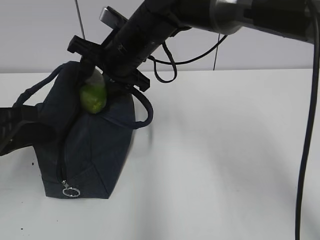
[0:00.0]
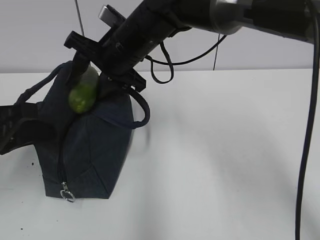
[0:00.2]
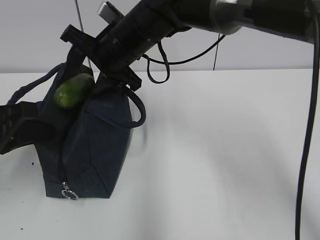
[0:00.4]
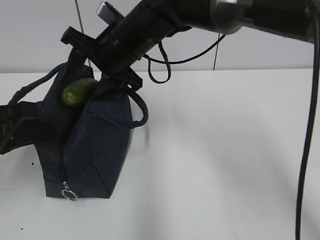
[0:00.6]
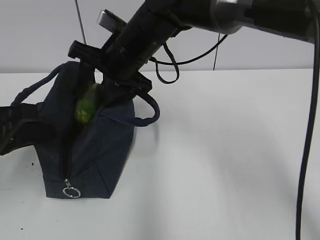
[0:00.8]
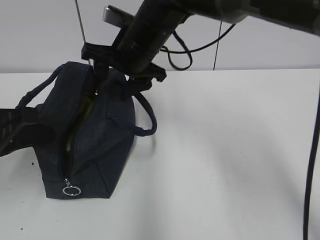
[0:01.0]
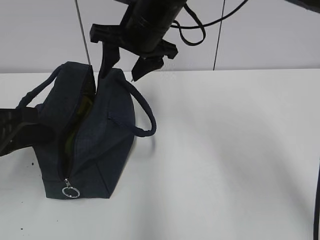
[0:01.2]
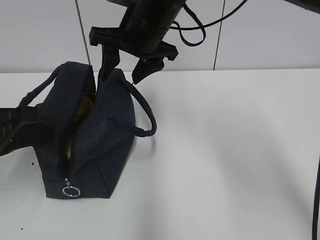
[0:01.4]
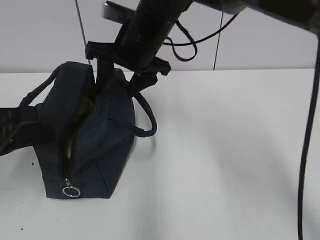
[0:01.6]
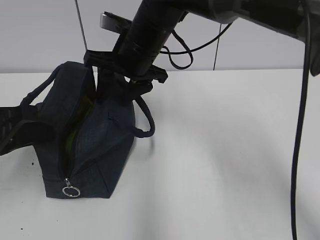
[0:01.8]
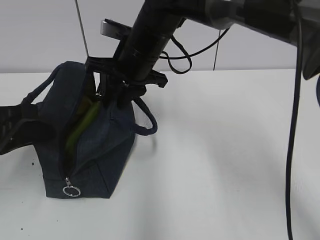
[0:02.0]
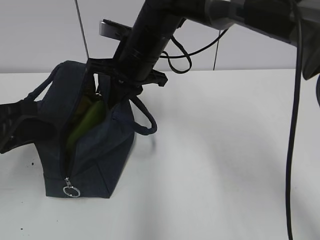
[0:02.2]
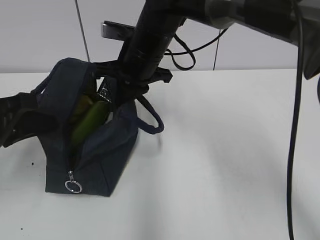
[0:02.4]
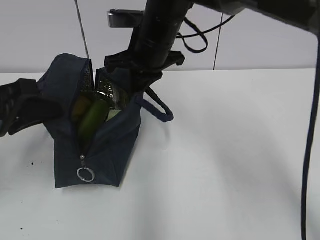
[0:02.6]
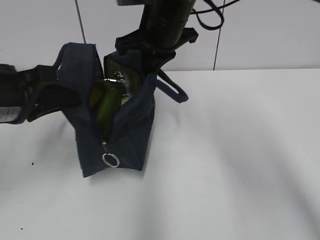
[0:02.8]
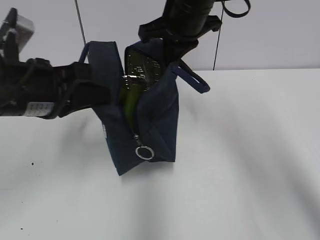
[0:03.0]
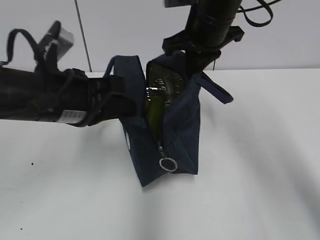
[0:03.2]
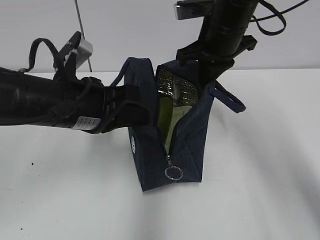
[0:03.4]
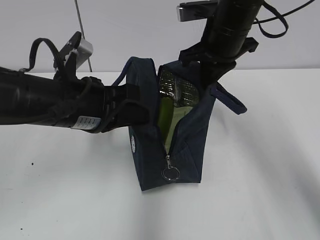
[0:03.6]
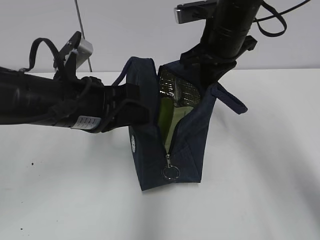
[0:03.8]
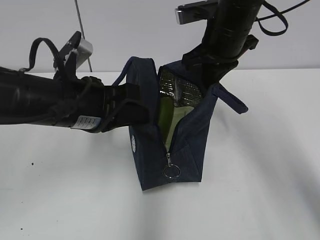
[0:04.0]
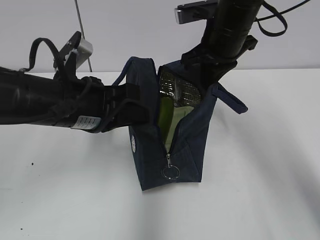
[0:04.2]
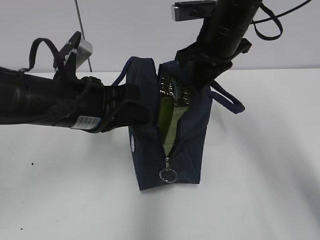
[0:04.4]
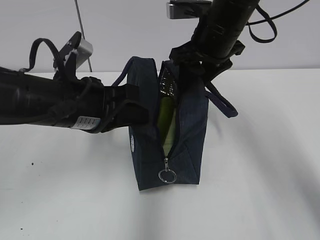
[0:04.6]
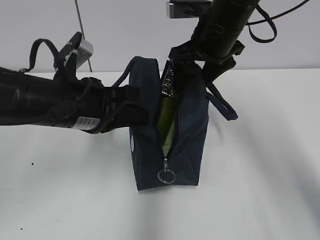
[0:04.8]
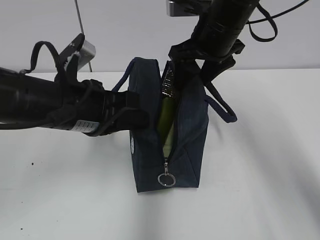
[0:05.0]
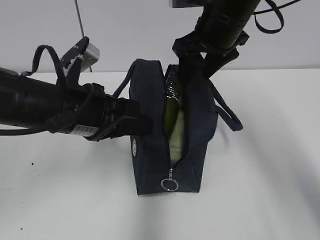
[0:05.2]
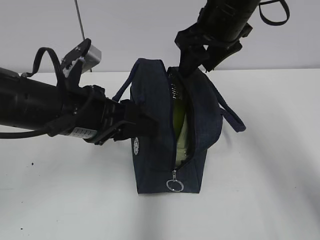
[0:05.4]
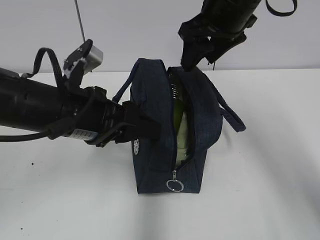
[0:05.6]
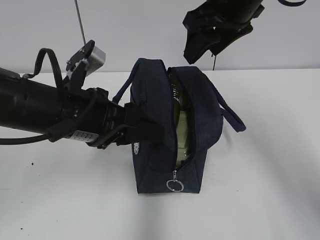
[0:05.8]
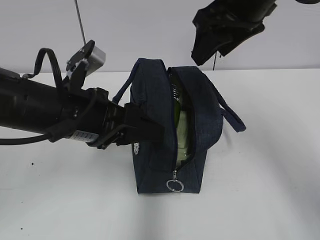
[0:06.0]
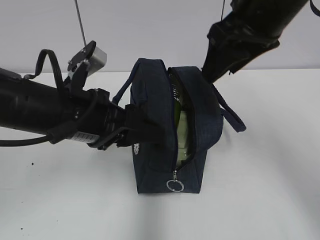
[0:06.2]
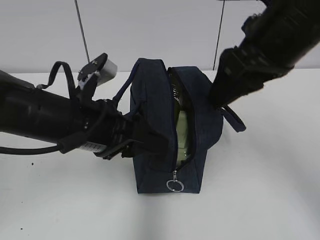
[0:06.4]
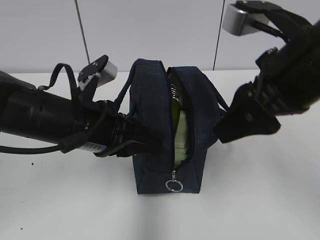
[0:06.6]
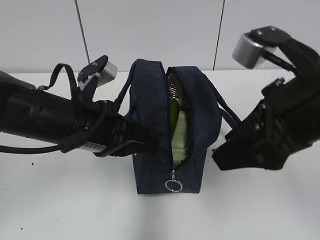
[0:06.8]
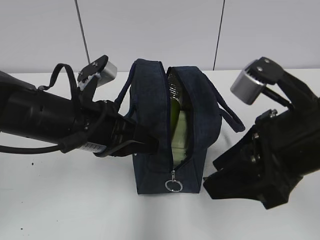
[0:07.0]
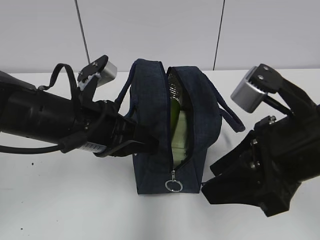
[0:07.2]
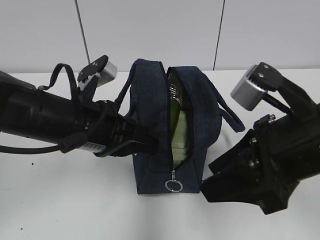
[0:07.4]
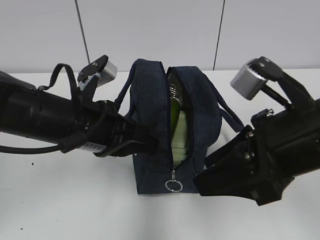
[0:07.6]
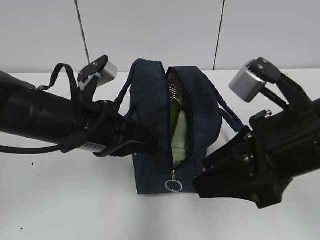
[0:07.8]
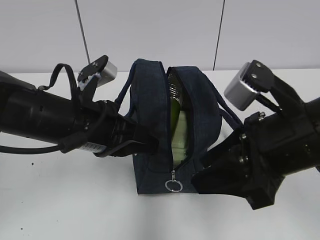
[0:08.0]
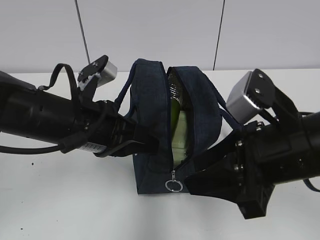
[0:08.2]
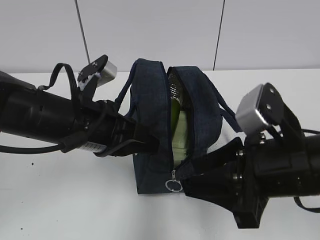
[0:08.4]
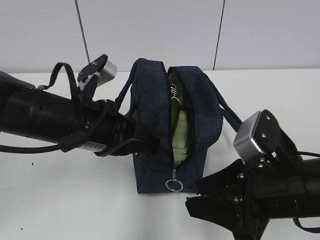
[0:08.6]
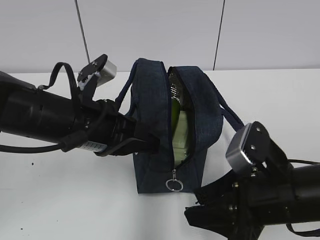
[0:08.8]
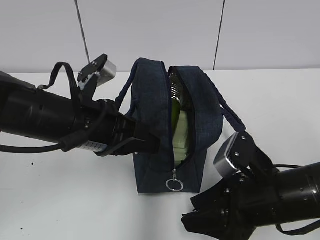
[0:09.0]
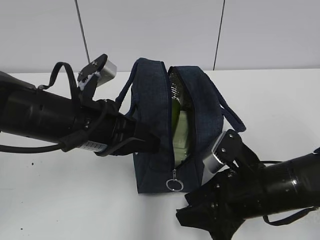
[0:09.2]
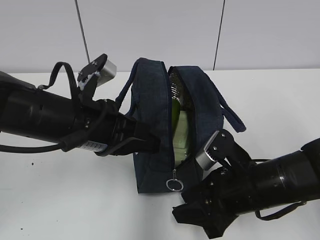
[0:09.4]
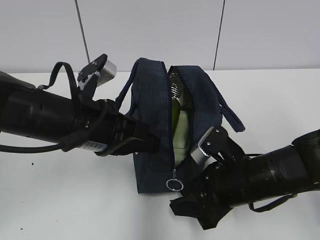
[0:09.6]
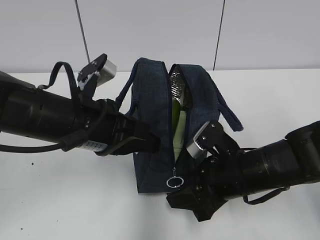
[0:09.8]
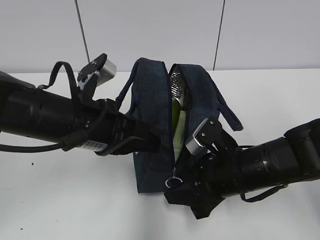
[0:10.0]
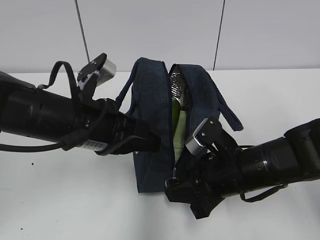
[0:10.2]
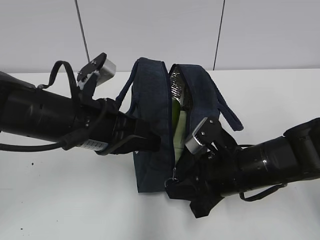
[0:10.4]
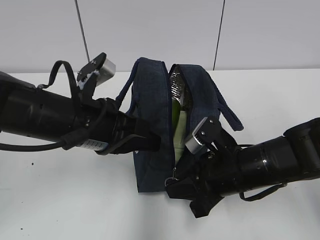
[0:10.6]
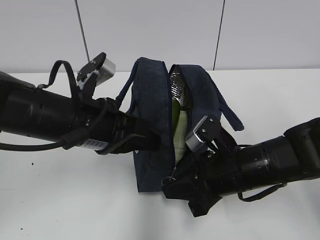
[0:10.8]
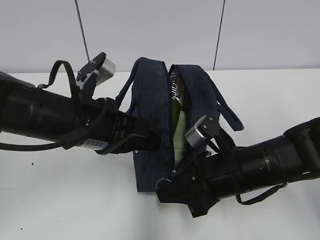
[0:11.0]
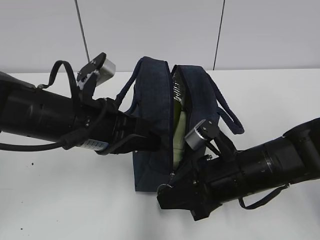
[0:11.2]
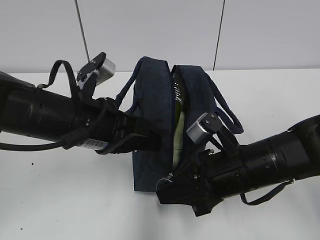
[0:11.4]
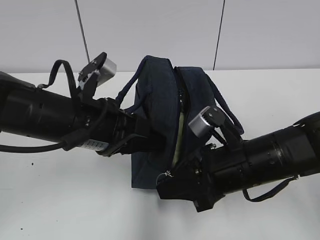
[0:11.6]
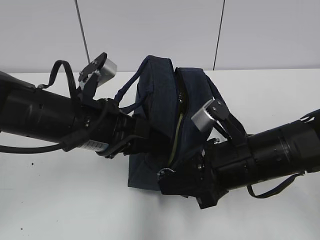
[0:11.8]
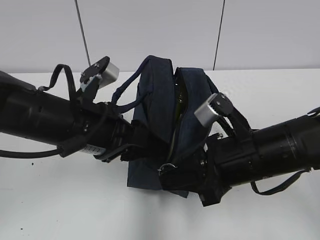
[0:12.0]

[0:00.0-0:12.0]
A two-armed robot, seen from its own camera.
0:01.6 to 0:03.0: Both grippers move to the right, about 5 cm. The right gripper closes up.
0:03.0 to 0:04.4: Both grippers move to the right, some 5 cm.
0:04.4 to 0:06.0: The right gripper heads upward and backward, covering approximately 10 cm, and opens. Meanwhile the left gripper opens its fingers.
0:06.0 to 0:07.6: The right gripper shifts some 20 cm backward and downward; the left gripper closes up.
0:07.6 to 0:09.0: The right gripper heads downward, covering about 10 cm.
0:09.0 to 0:10.4: The right gripper travels forward by about 5 cm, and closes its fingers.
0:10.4 to 0:12.0: The left gripper opens its fingers; the right gripper goes approximately 5 cm upward.

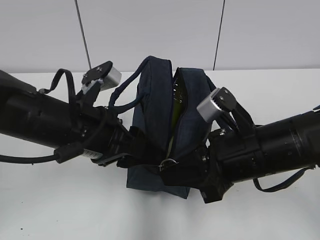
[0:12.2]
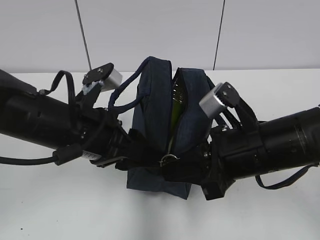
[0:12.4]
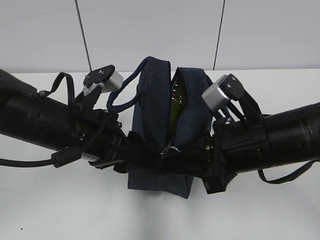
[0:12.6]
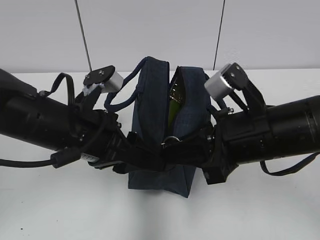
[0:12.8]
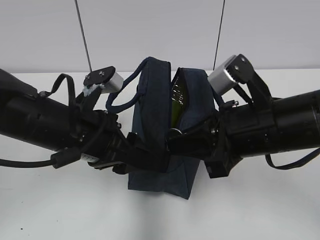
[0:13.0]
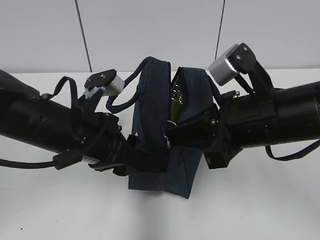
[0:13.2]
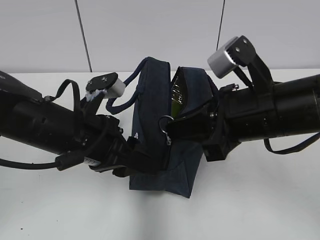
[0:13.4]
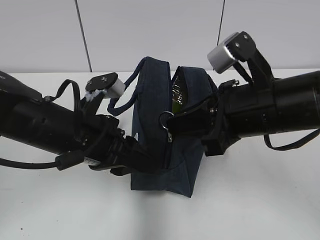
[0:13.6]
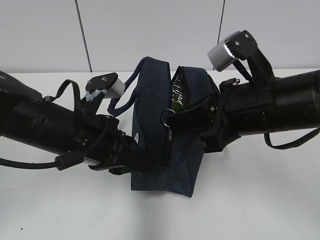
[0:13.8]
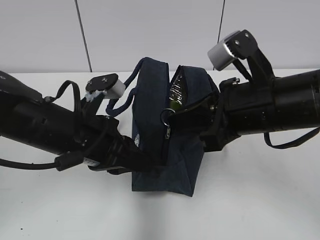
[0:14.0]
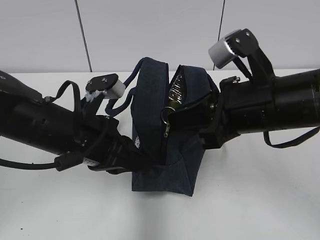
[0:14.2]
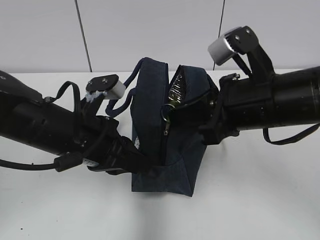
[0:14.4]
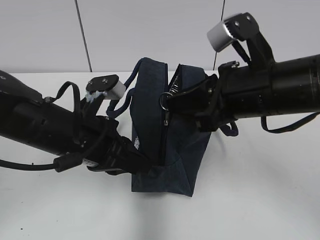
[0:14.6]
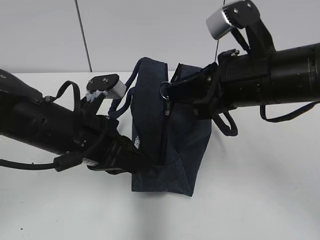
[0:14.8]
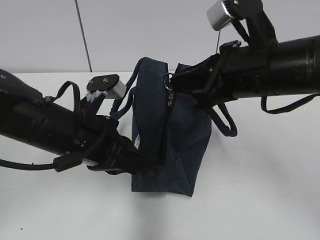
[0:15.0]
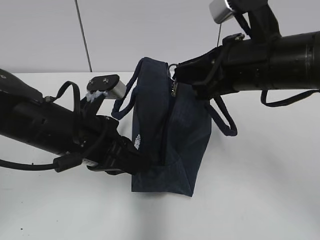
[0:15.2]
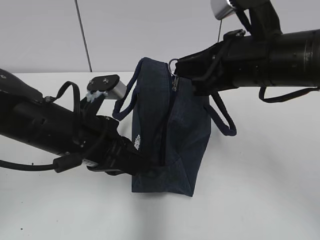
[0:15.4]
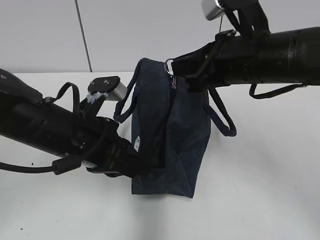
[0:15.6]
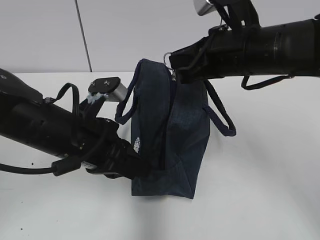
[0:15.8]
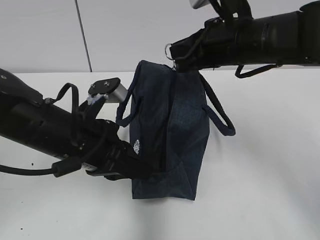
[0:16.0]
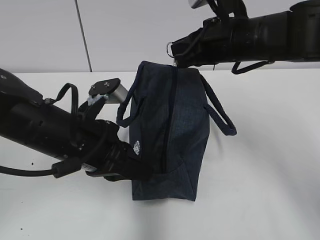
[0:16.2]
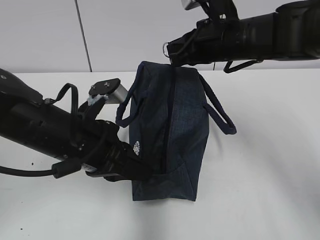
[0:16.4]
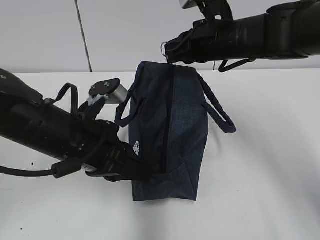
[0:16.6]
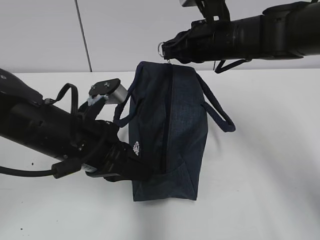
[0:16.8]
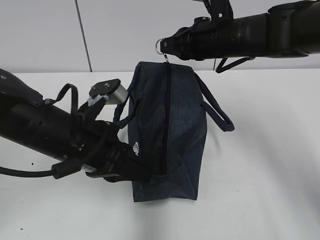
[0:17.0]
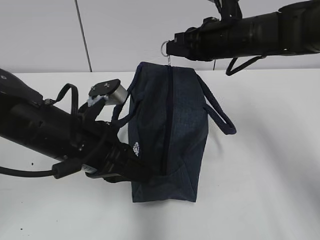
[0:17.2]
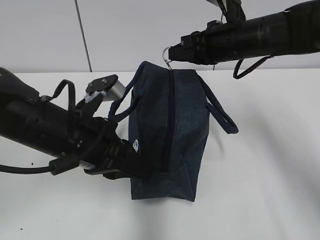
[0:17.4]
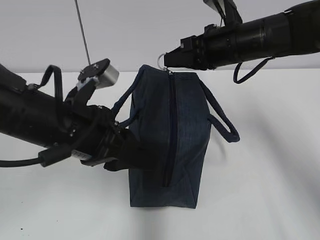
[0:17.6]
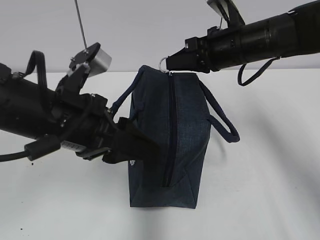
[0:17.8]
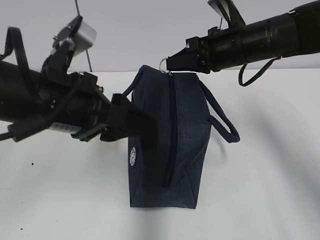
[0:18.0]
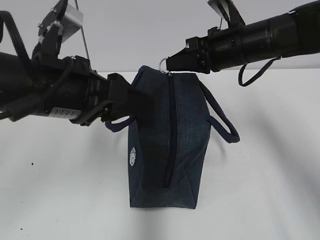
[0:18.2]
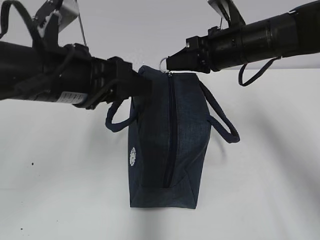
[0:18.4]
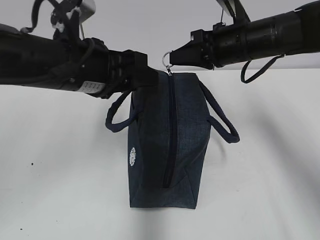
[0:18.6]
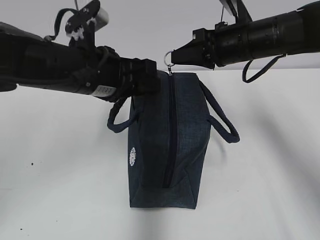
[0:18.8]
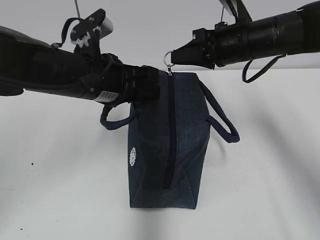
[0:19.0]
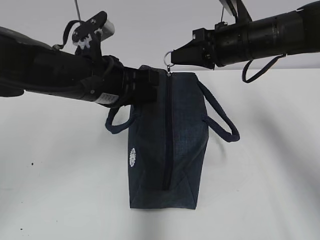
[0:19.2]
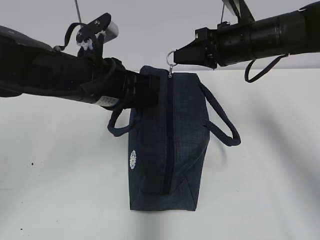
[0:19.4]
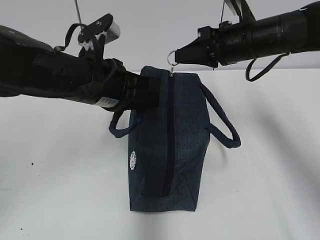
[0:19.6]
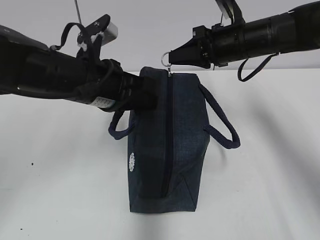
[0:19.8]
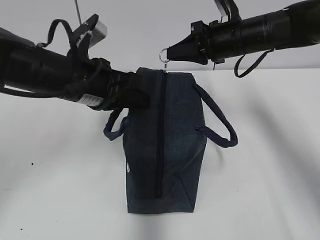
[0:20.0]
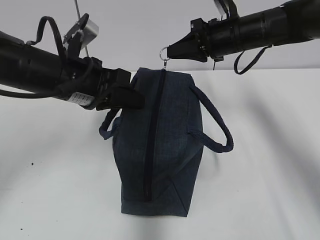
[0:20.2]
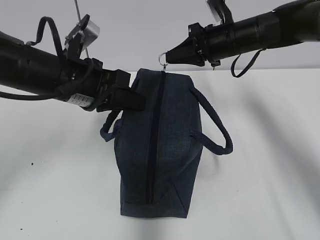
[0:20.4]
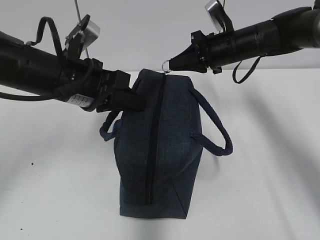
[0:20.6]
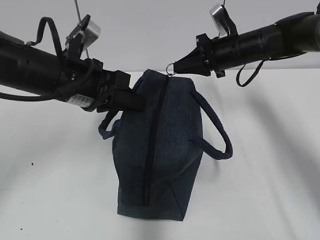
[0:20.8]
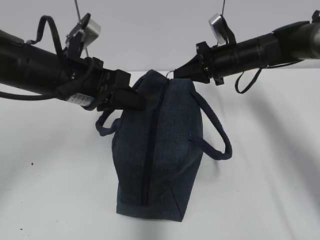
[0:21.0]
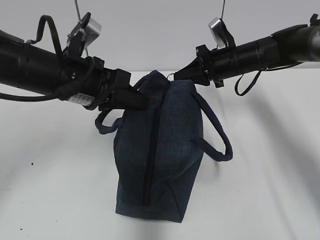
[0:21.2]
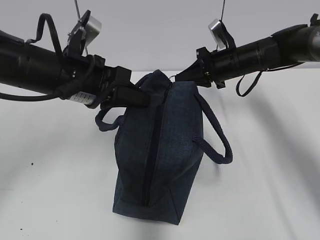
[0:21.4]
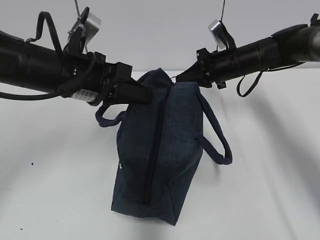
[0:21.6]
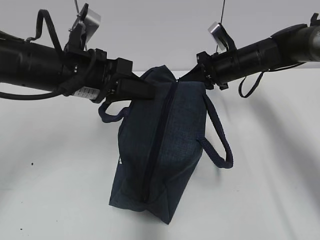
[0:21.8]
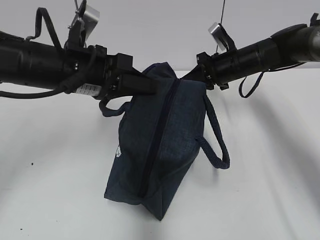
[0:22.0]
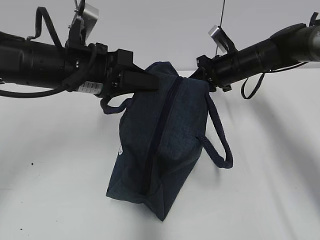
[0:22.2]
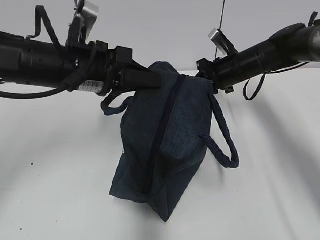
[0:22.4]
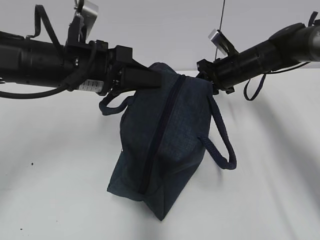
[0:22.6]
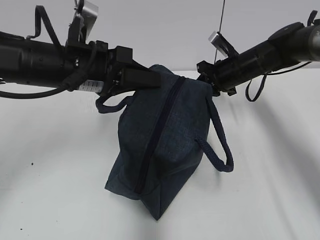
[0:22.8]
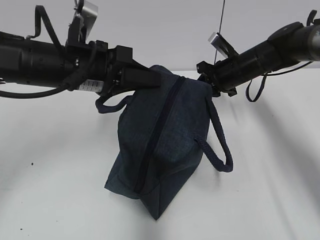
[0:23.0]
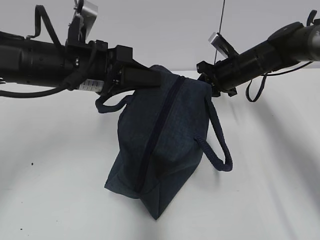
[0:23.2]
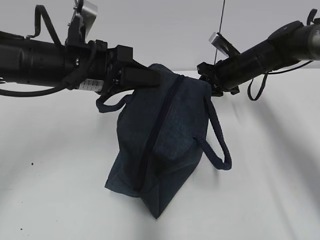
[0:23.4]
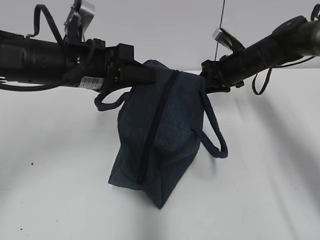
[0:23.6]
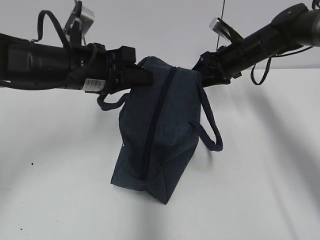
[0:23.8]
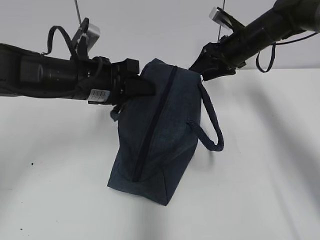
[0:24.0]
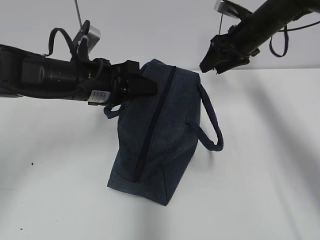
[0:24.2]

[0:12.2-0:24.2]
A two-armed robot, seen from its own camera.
0:12.2 to 0:13.8: The right gripper shifts some 5 cm upward, while the left gripper closes up.
0:13.8 to 0:15.2: The left gripper closes.
0:15.2 to 0:16.6: The right gripper is displaced forward by approximately 10 cm.
0:16.6 to 0:18.2: The left gripper is displaced upward by some 10 cm, and opens.
0:18.2 to 0:19.8: The left gripper goes approximately 5 cm forward, and closes up.
0:19.8 to 0:21.2: The right gripper is displaced downward and forward by about 10 cm.
0:21.2 to 0:22.6: The grippers move only a little.
0:22.6 to 0:24.2: The right gripper goes some 5 cm upward, and opens up. The left gripper opens.
